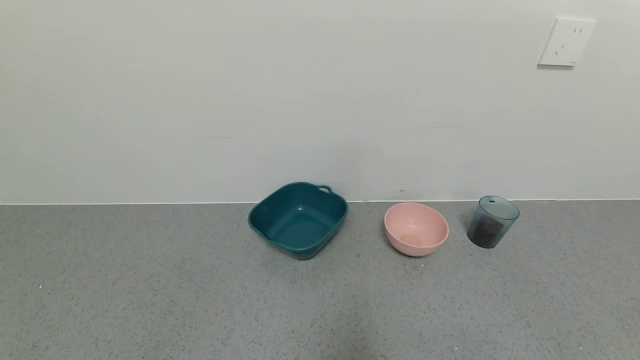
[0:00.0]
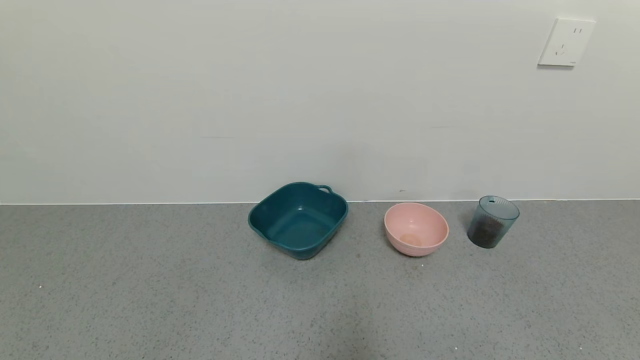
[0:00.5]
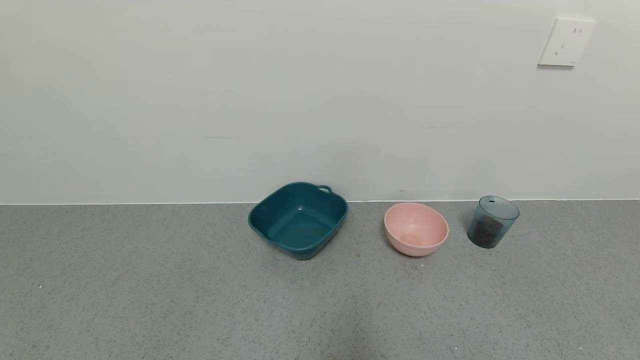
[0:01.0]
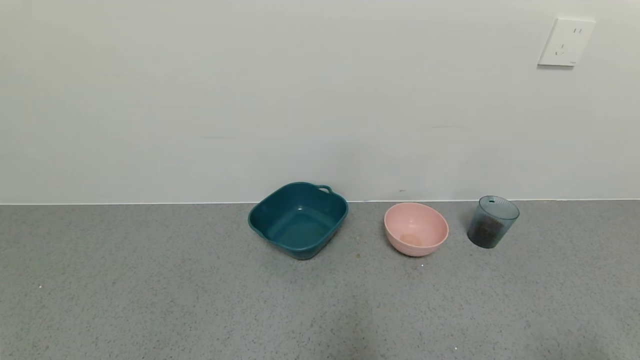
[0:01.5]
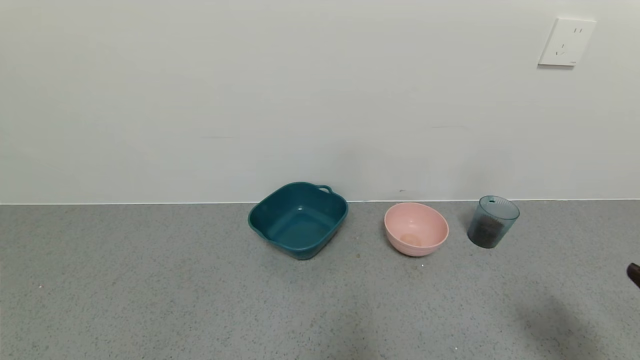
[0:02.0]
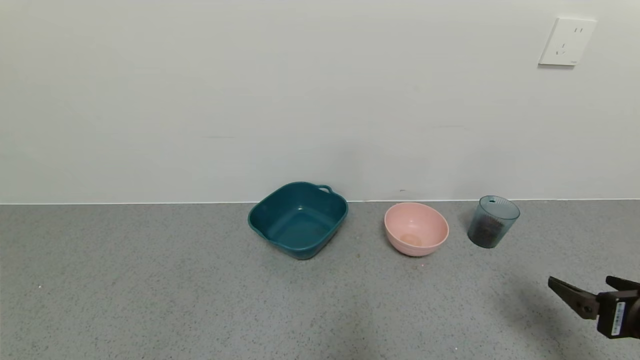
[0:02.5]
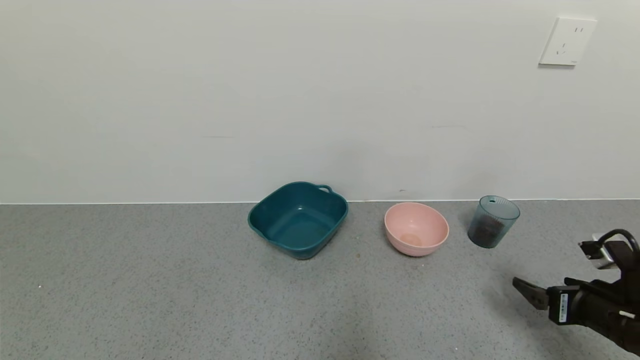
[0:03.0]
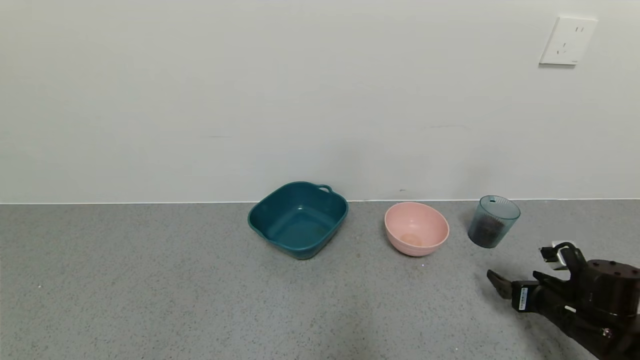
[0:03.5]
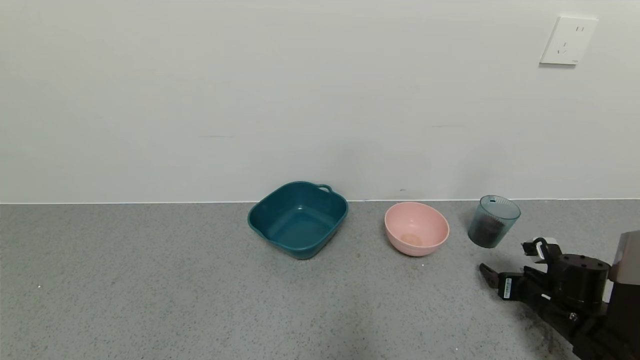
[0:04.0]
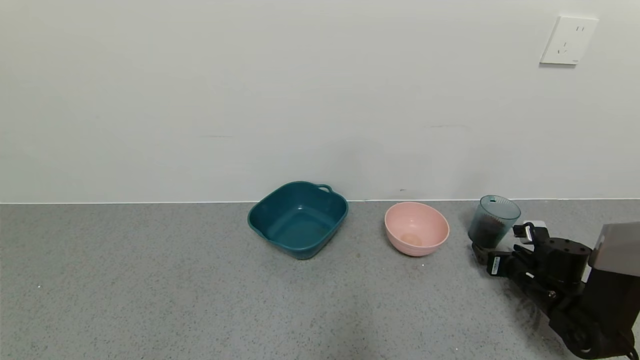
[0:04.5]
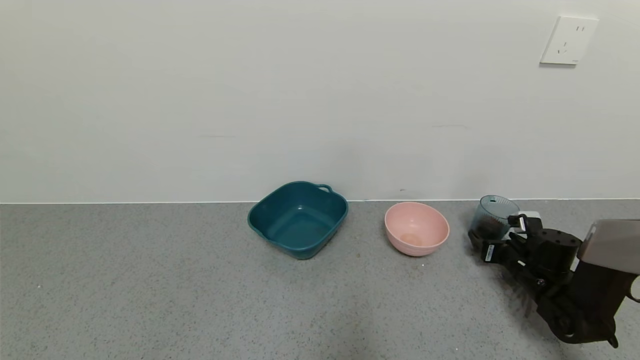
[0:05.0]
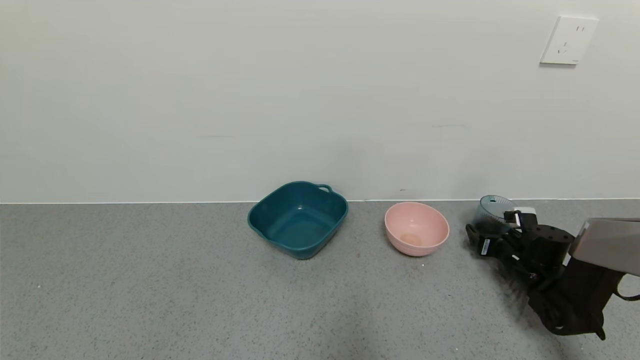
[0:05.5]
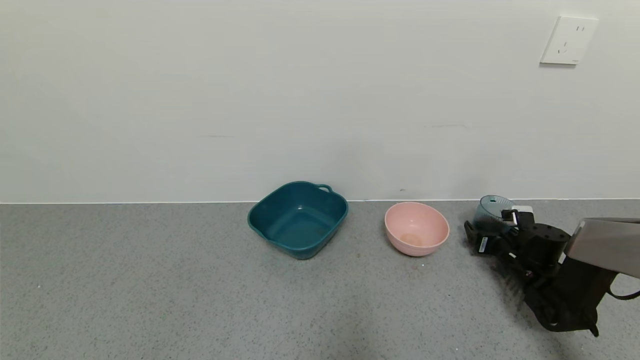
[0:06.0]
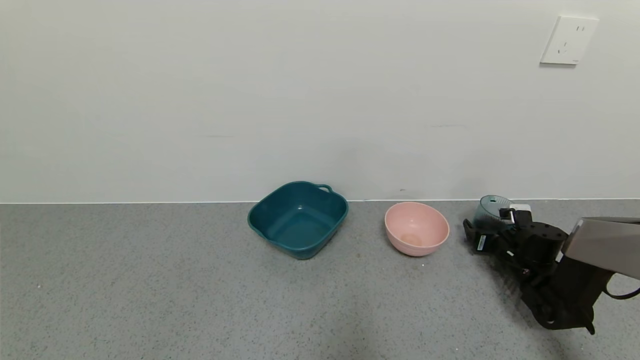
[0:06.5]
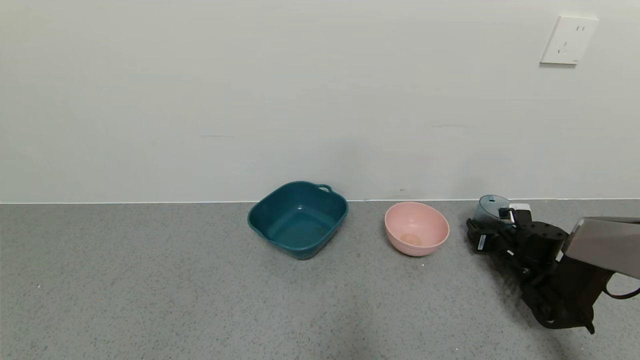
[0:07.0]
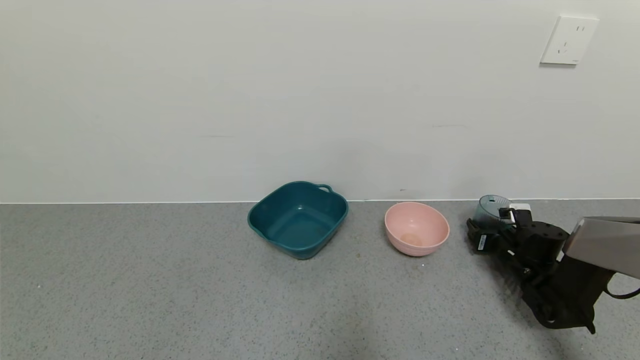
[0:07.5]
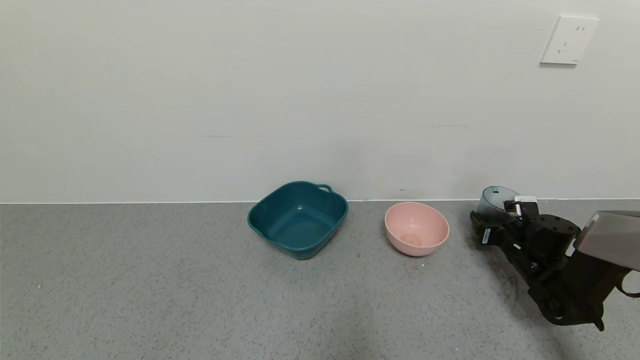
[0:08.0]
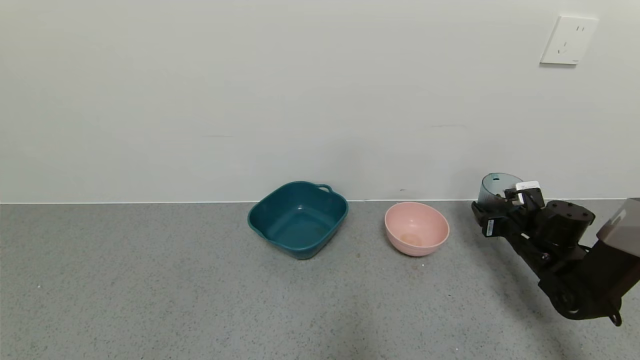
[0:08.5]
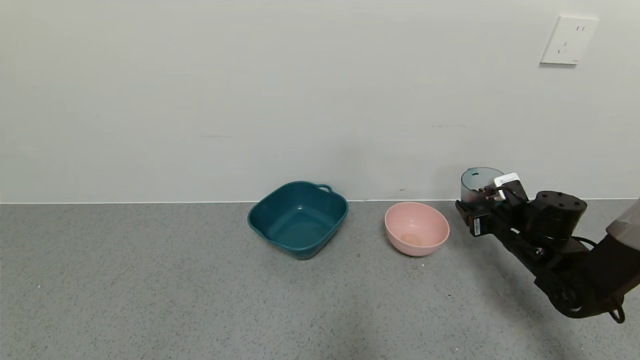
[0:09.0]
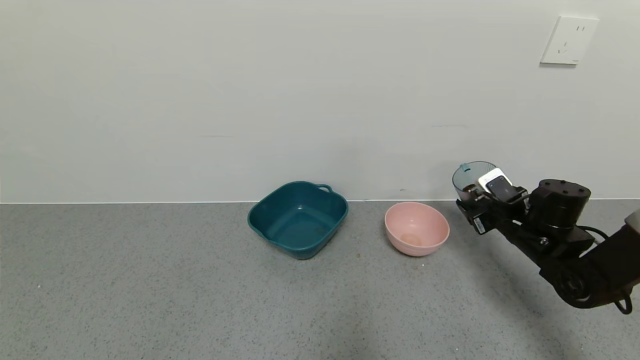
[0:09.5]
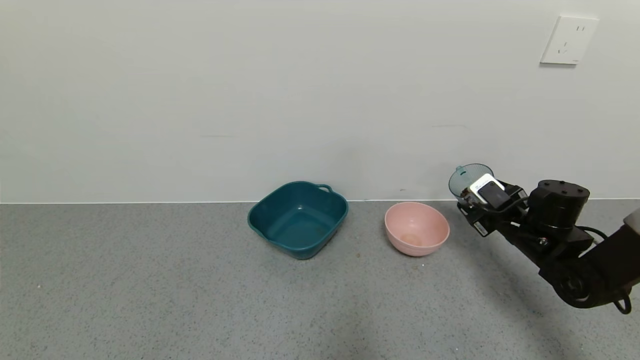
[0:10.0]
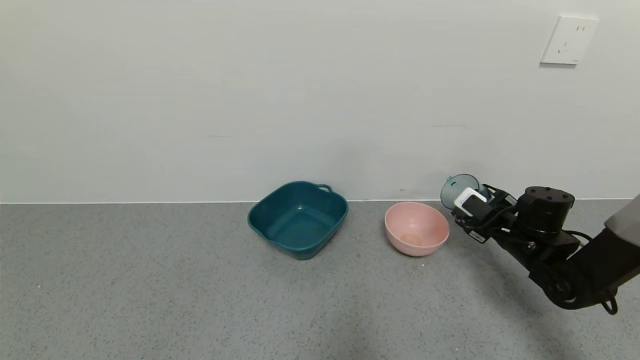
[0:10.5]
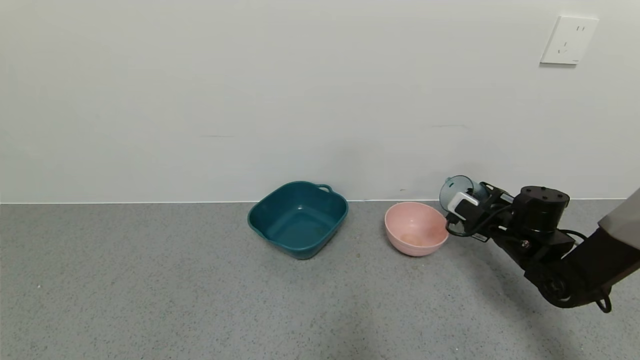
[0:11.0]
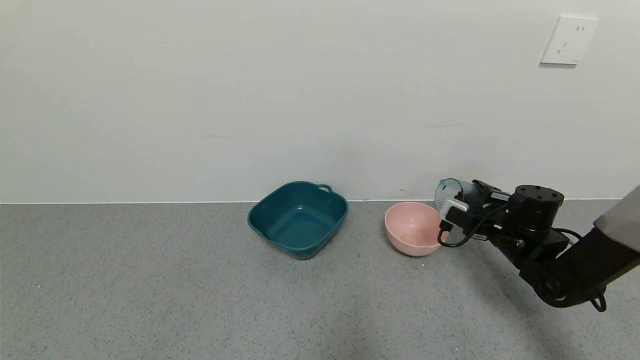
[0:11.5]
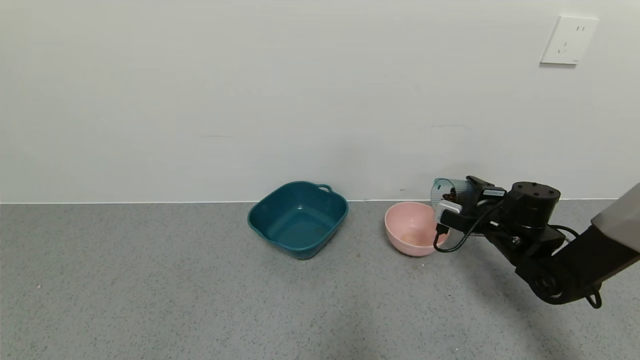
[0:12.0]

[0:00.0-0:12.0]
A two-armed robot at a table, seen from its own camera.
Task of the whole recording: use a gripper to pick up the cup and pour the solid into a bowl or tray.
Step, 0:00.0 to 0:07.5: Grasp the glass of coffee beans with the right gripper.
0:00.0 to 0:02.0: The right gripper shifts approximately 15 cm upward and forward.
0:02.0 to 0:04.0: The right gripper travels forward and downward by some 30 cm.
0:04.0 to 0:06.0: The right gripper is displaced forward by roughly 10 cm.
0:06.0 to 0:08.0: The right gripper closes.
0:08.0 to 0:10.0: The right gripper shifts about 10 cm upward.

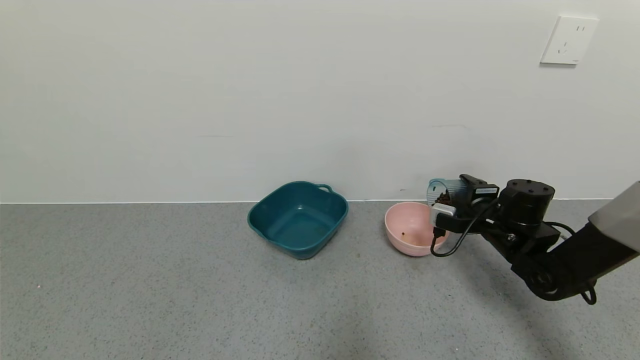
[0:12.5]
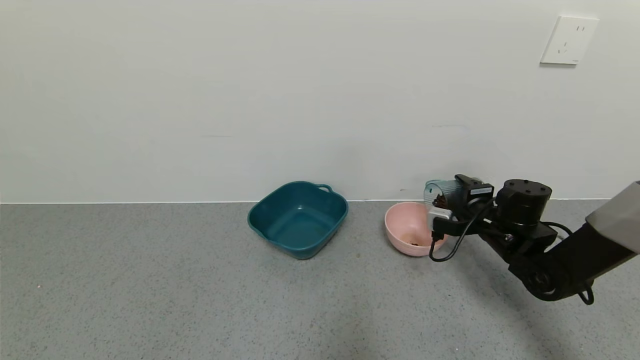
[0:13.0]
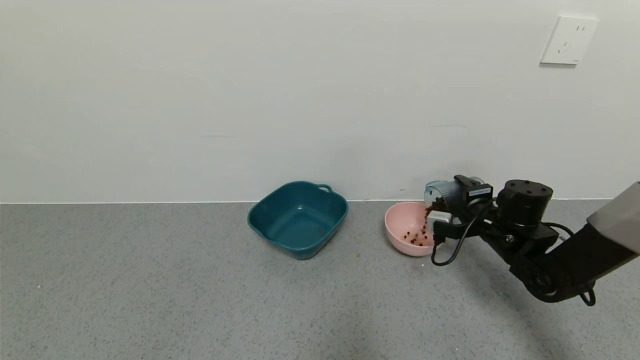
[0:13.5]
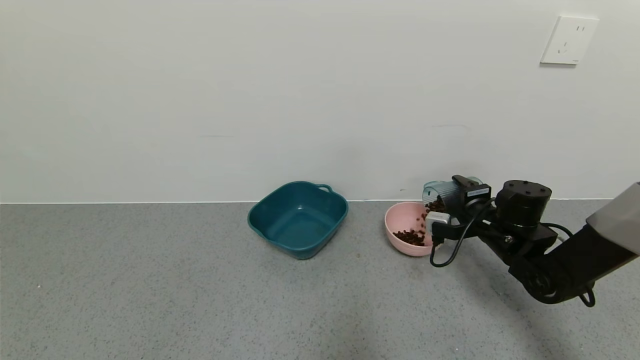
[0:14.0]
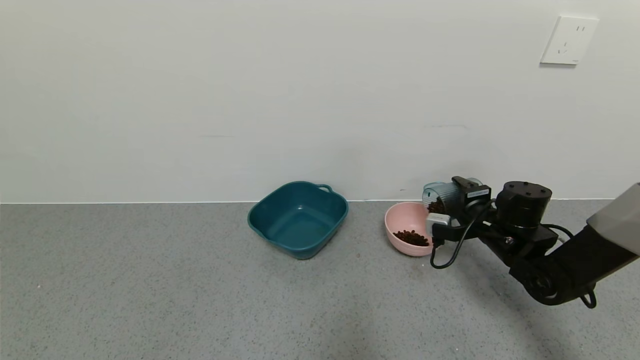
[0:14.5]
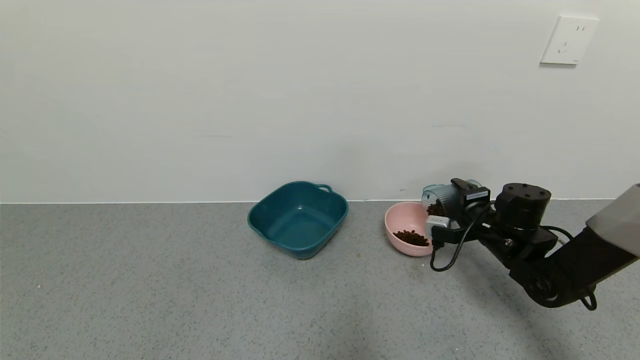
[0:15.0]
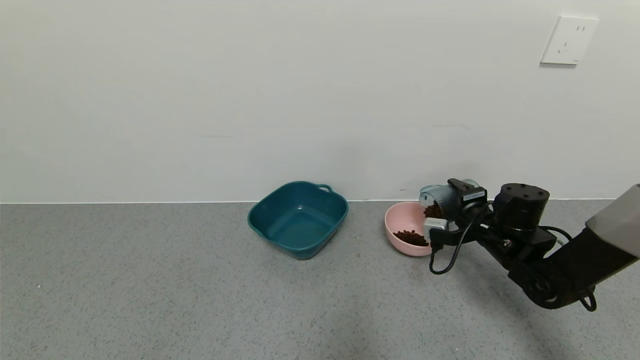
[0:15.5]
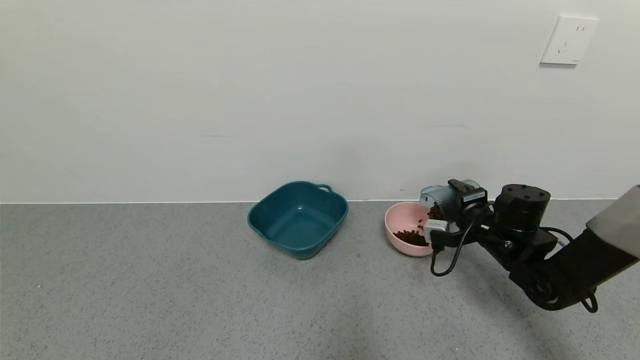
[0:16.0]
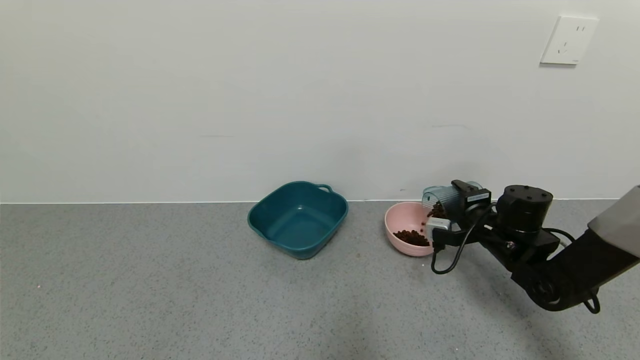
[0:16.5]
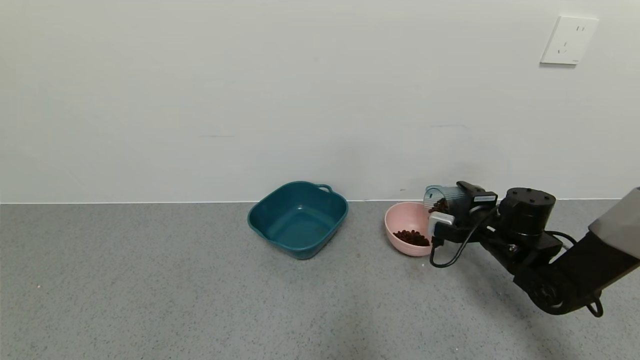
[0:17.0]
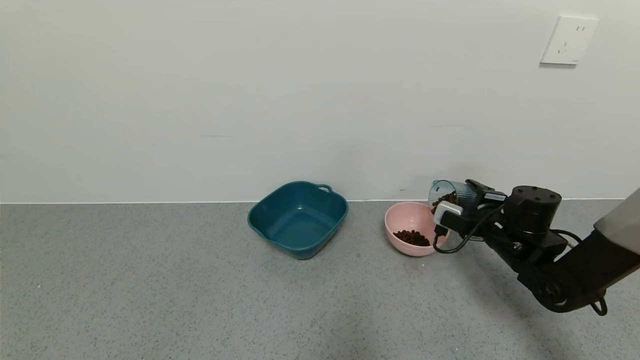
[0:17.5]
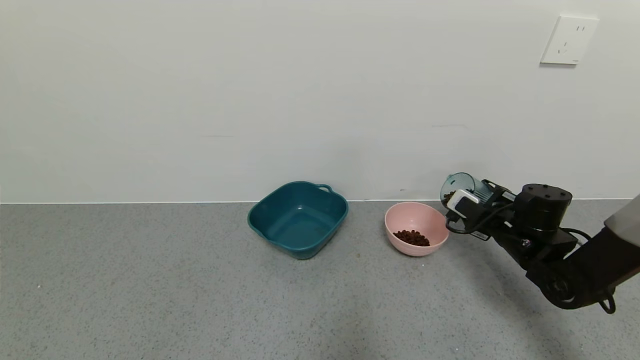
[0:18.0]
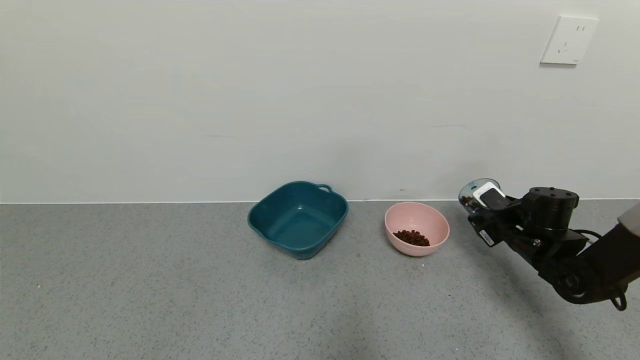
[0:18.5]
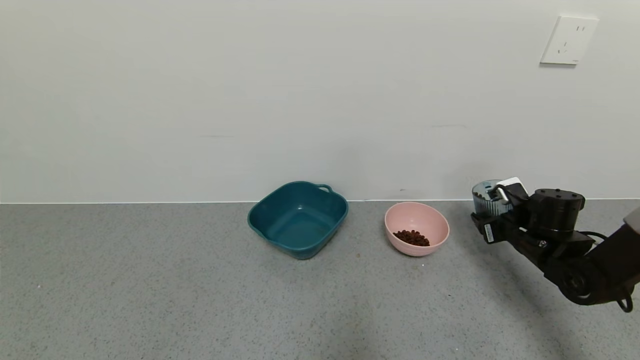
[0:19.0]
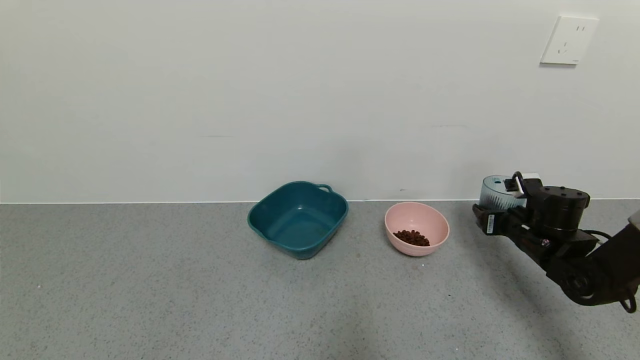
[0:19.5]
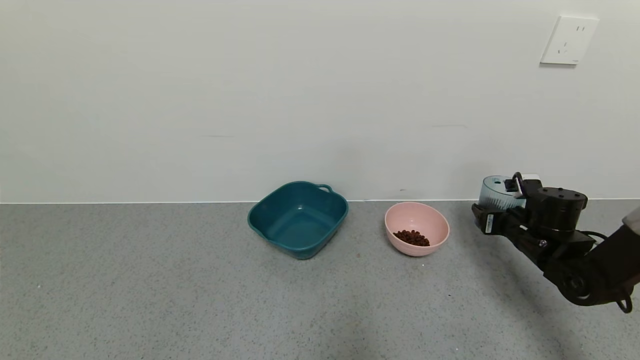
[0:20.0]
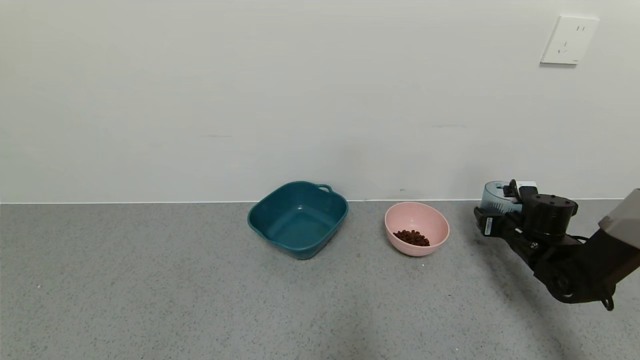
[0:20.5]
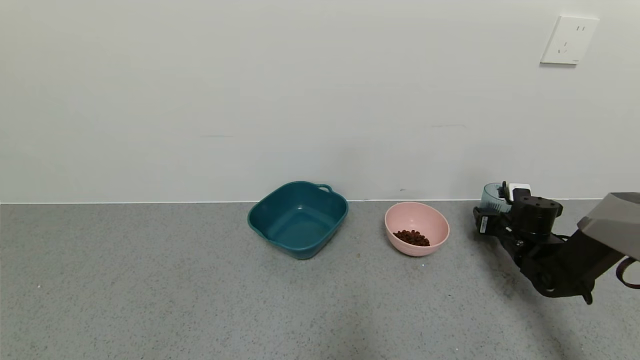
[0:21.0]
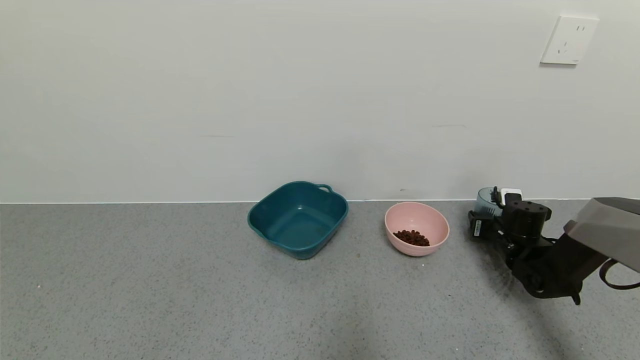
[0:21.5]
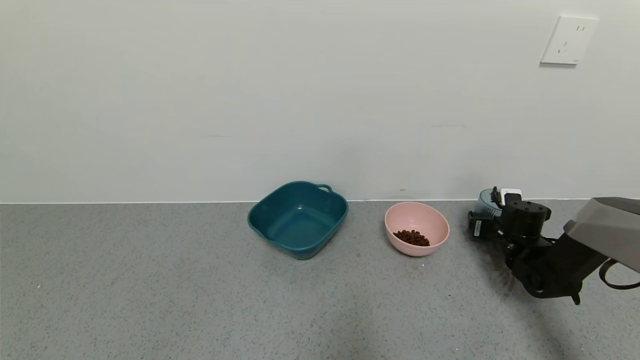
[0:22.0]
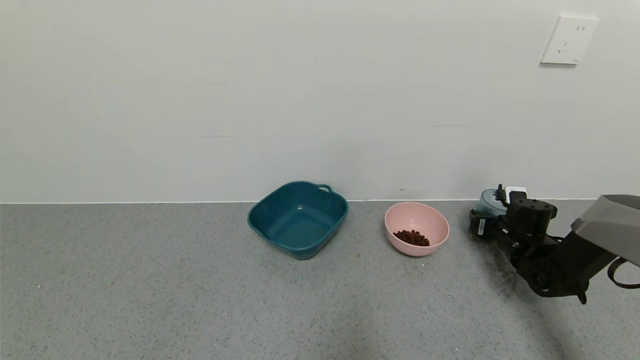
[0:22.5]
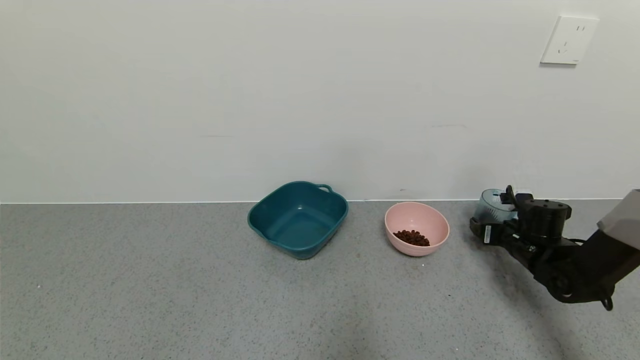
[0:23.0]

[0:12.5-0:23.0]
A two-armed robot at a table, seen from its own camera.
Task of the whole recording: use a gripper to pick up the cup and pour the solid into a bowl or tray.
Step, 0:12.5 to 0:18.0: Pour the coffee beans into the pink bowl with the right gripper.
0:12.5 to 0:14.5: The grippers move only a little.
0:14.5 to 0:16.5: Neither gripper changes place.
0:16.5 to 0:19.0: The right gripper shifts approximately 5 cm to the right.
0:19.0 to 0:21.0: The right gripper ends up about 5 cm from where it was.
0:21.0 to 0:23.0: The right gripper opens up.
